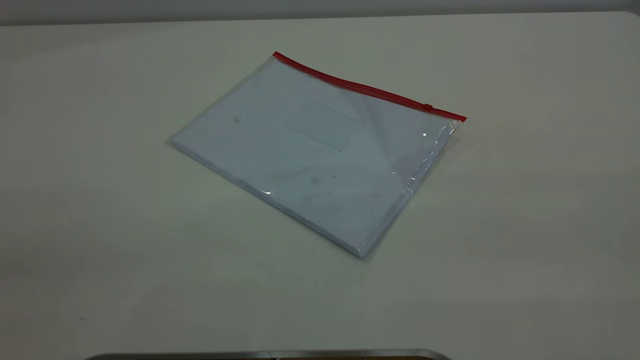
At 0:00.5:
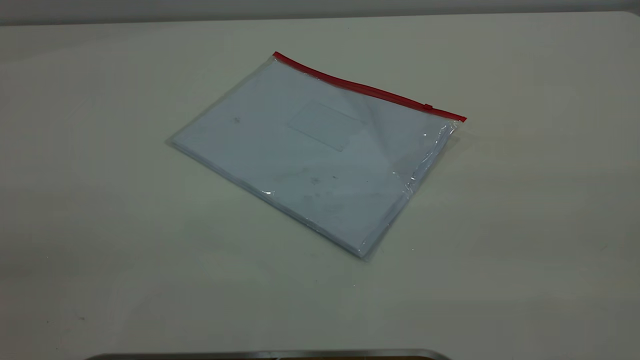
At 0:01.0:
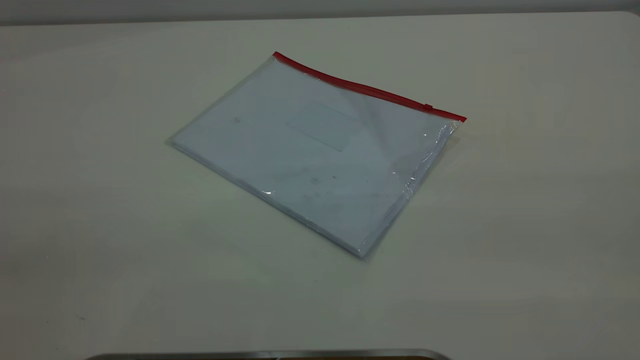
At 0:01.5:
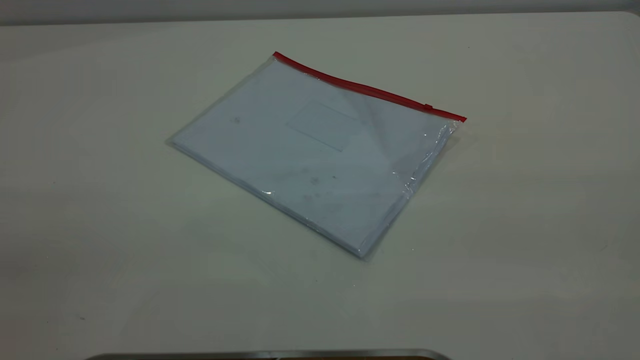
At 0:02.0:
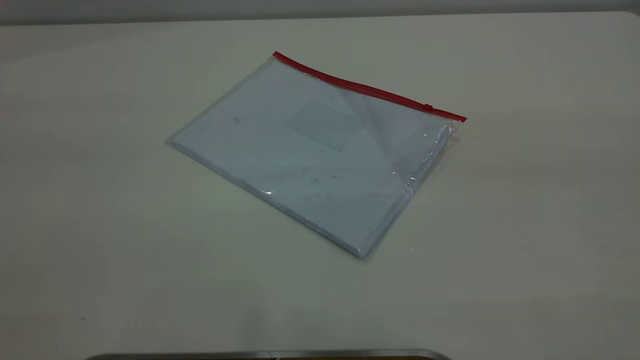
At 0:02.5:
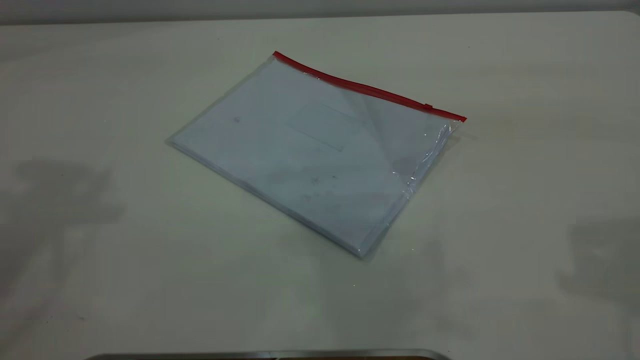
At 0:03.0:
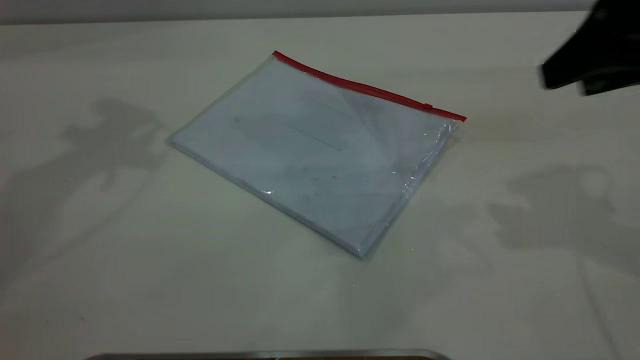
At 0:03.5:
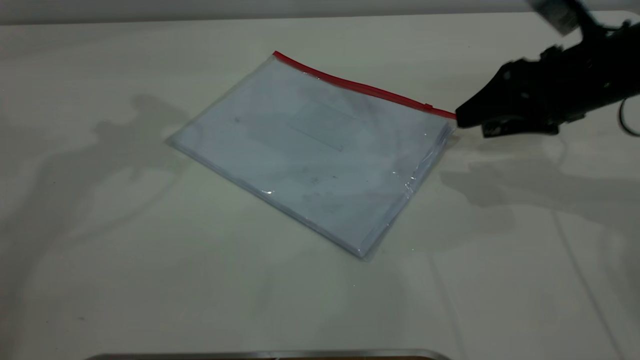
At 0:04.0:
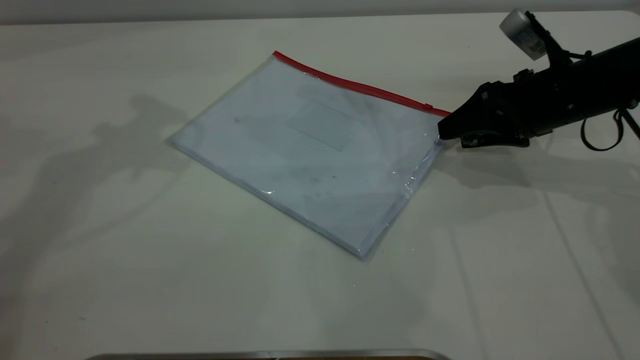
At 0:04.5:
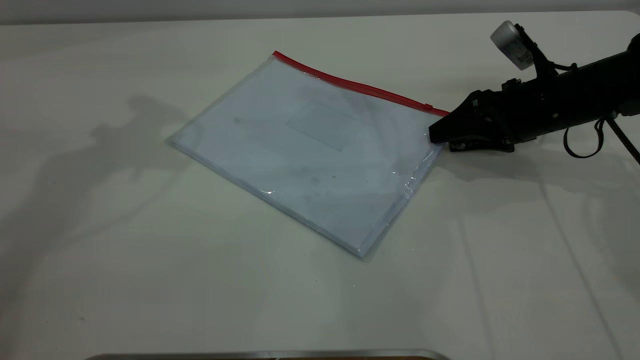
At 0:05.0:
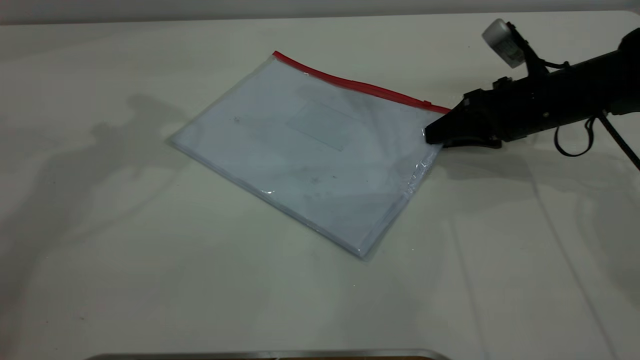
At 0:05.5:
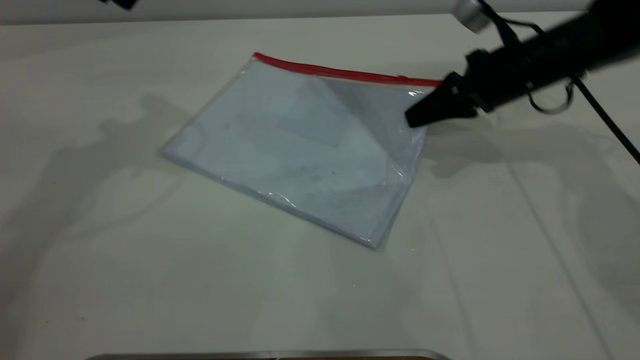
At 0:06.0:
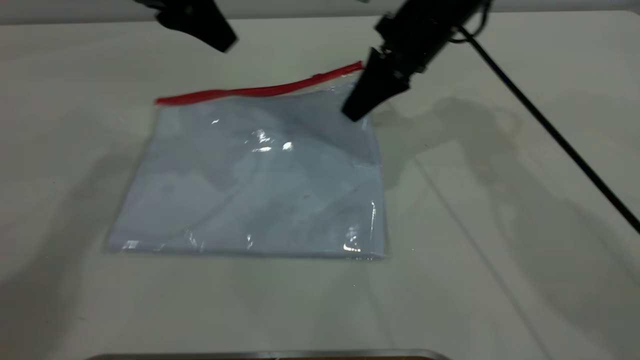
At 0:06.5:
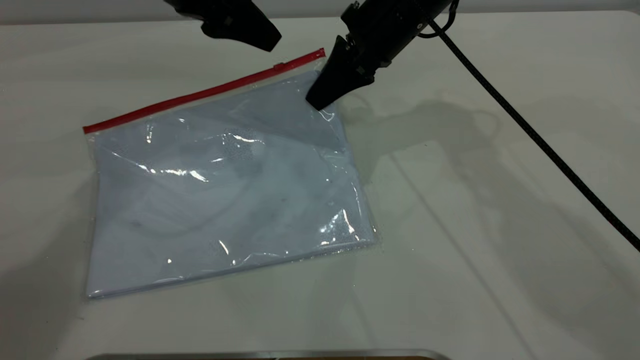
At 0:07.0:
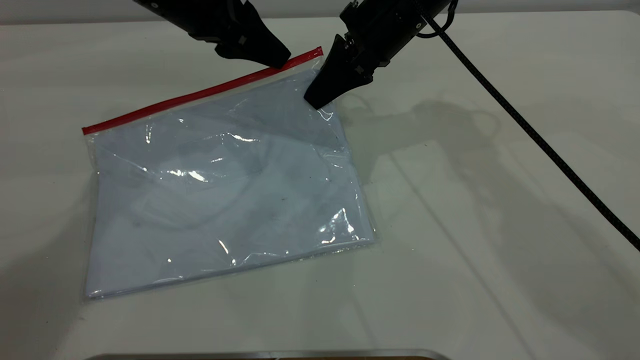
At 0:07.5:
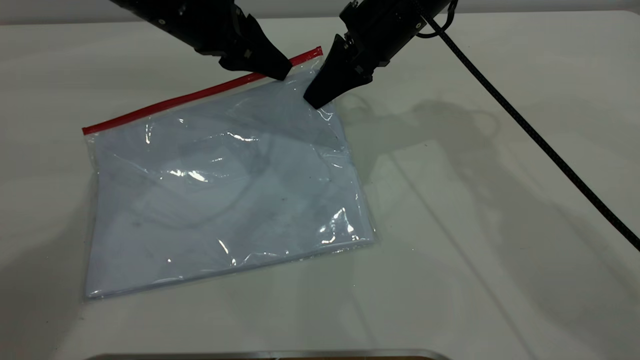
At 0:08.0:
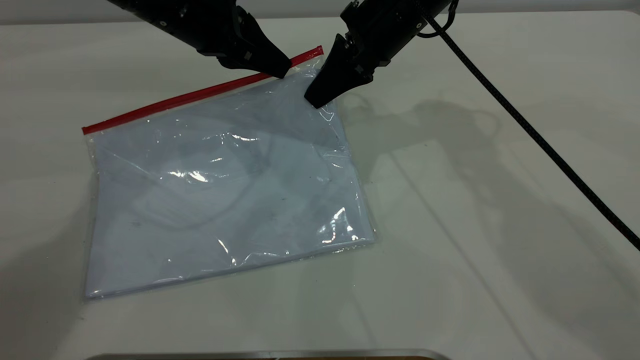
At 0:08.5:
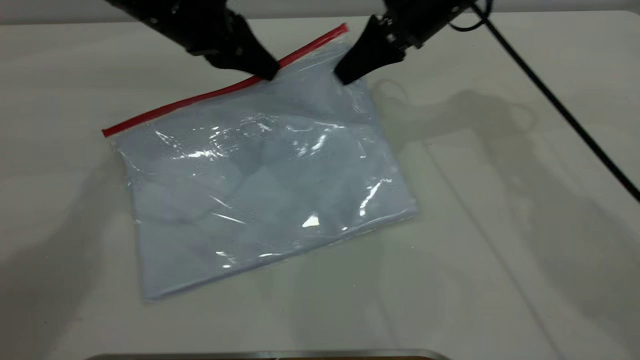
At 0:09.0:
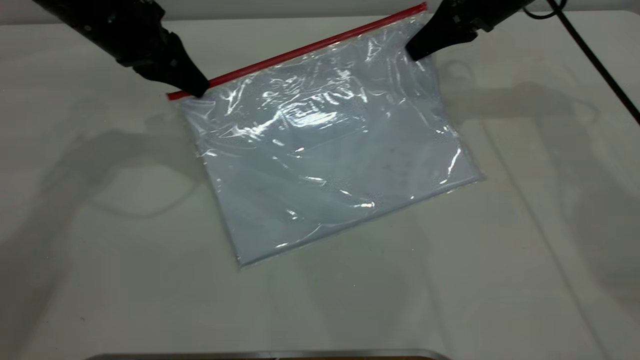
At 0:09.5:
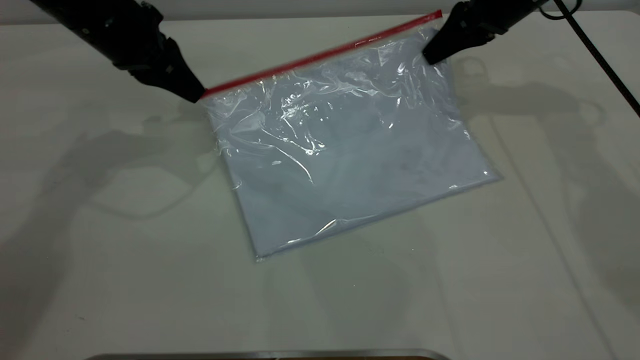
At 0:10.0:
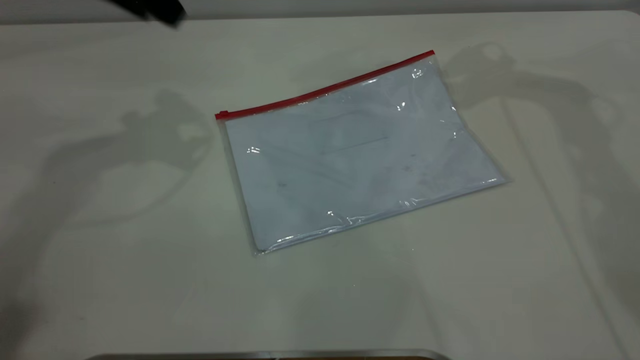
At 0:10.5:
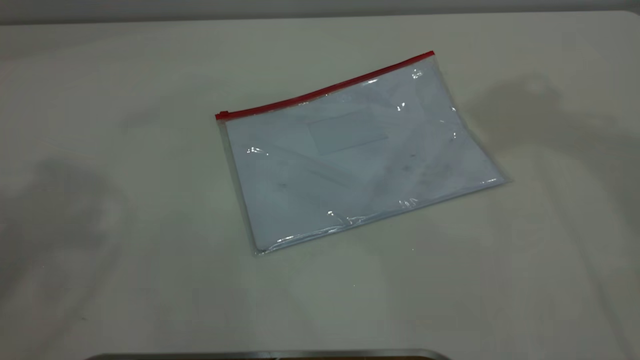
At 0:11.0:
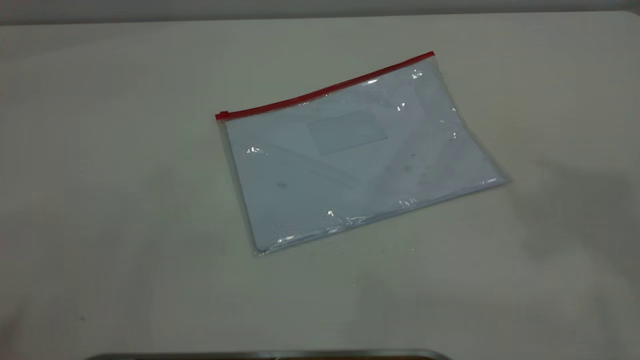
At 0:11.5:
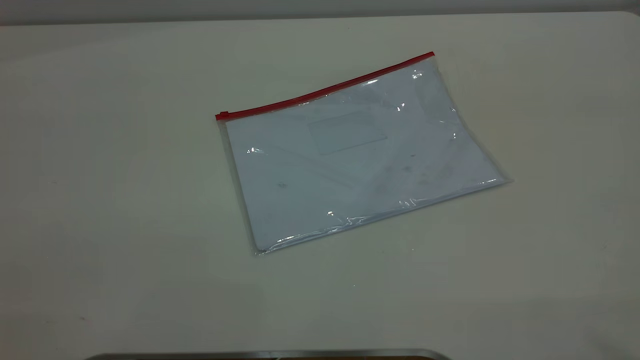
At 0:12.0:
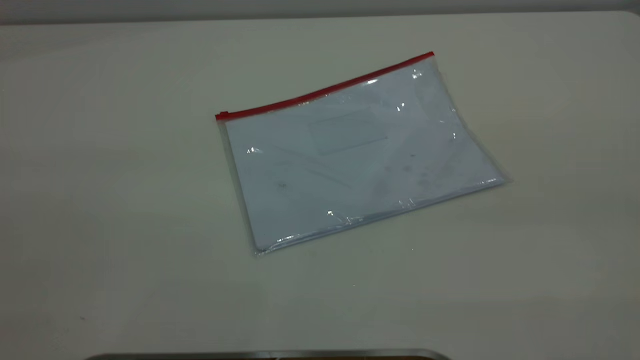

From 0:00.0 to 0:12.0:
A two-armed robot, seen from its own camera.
Step, from 0:00.0 to 0:05.5: Pick up the transparent plastic bag with the right gripper.
Step, from 0:06.0 to 0:09.5: Pulling up the zipper on the transparent plastic bag with the left gripper to close it.
From 0:02.0 to 0:04.0: The right gripper travels downward and forward by approximately 50 cm.
From 0:04.0 to 0:06.0: The right gripper shifts about 15 cm to the left and upward, and closes. The left gripper heads to the right and downward, covering roughly 10 cm.
From 0:06.0 to 0:08.0: The left gripper travels downward by some 5 cm, and closes up.
From 0:08.0 to 0:10.0: The left gripper moves upward and to the left, about 15 cm, and opens. Meanwhile the right gripper heads to the right and upward, covering some 20 cm, and opens its fingers.
From 0:10.0 to 0:12.0: The left gripper shifts some 40 cm backward.
